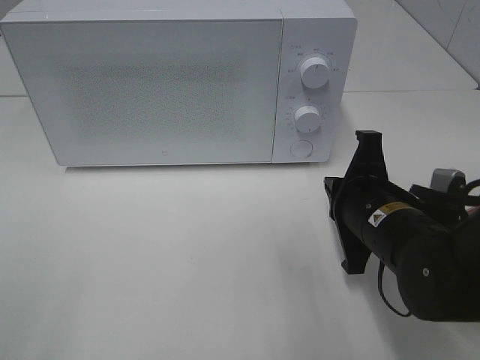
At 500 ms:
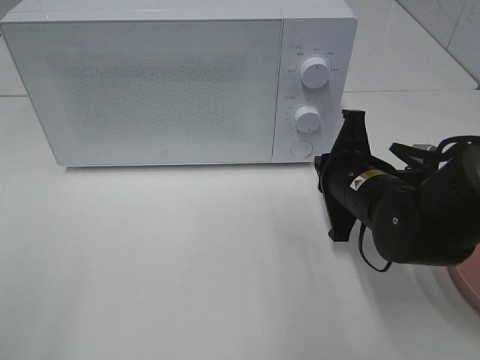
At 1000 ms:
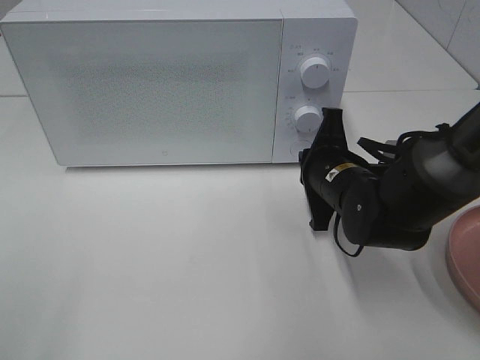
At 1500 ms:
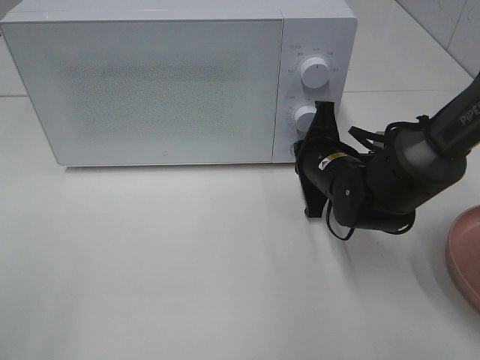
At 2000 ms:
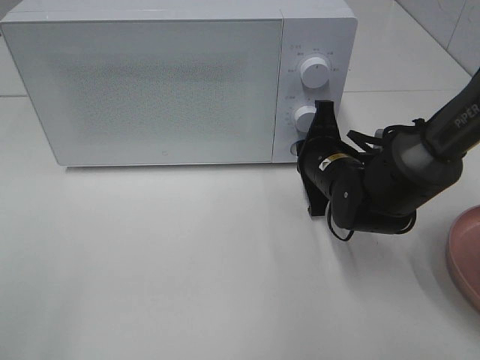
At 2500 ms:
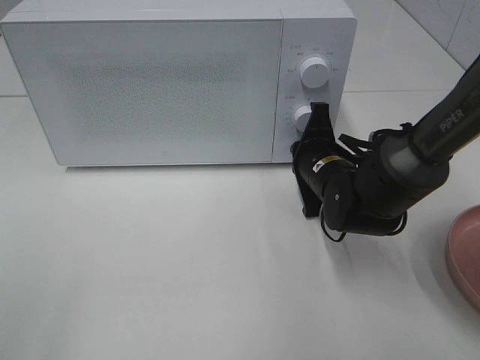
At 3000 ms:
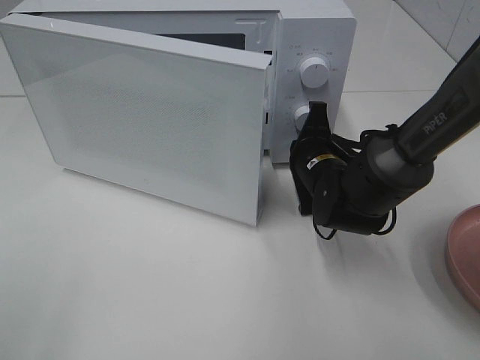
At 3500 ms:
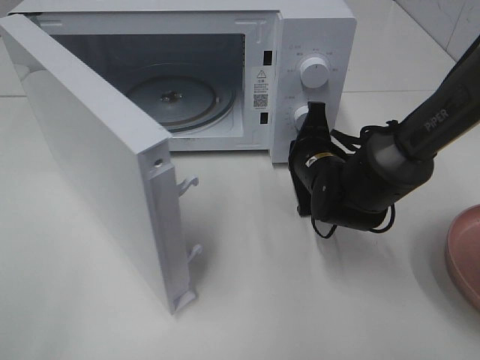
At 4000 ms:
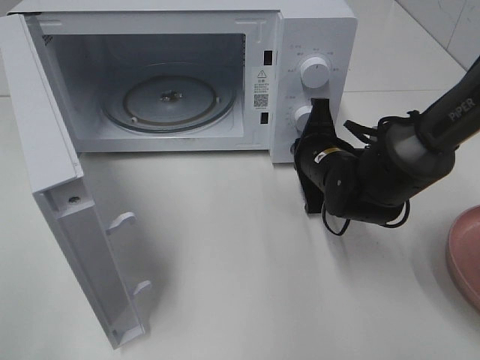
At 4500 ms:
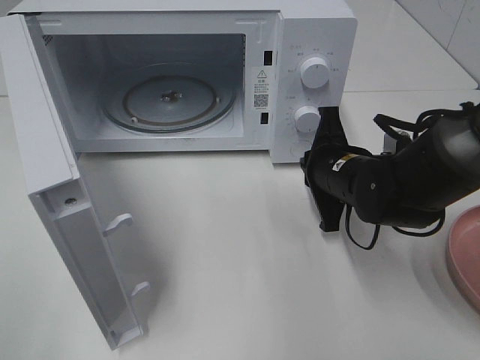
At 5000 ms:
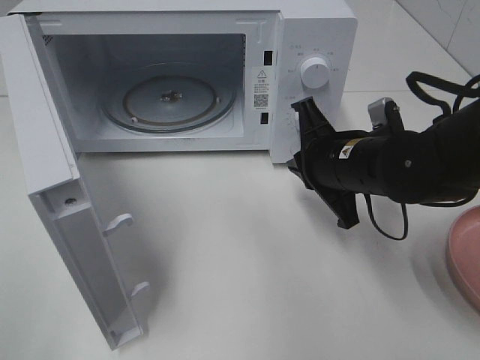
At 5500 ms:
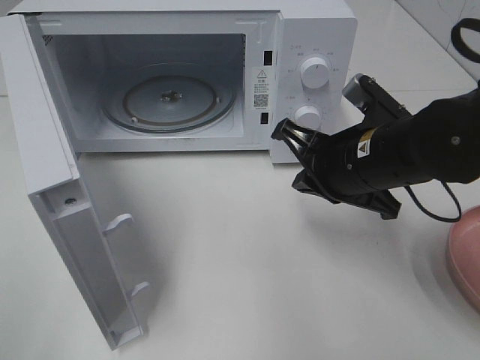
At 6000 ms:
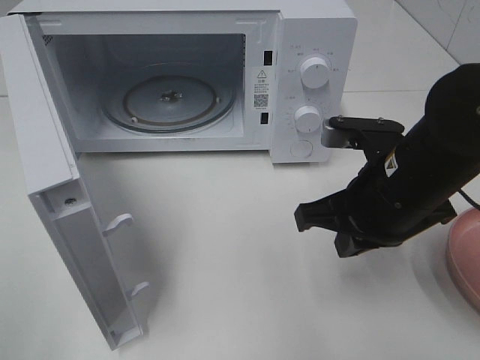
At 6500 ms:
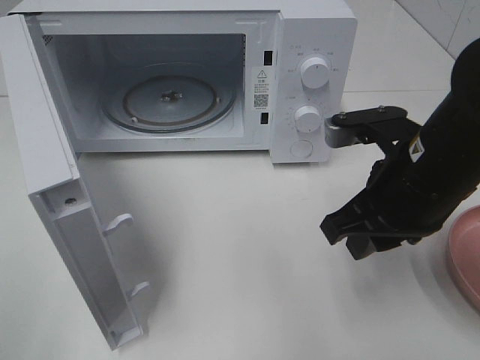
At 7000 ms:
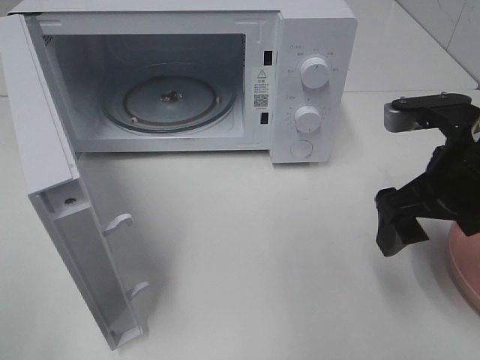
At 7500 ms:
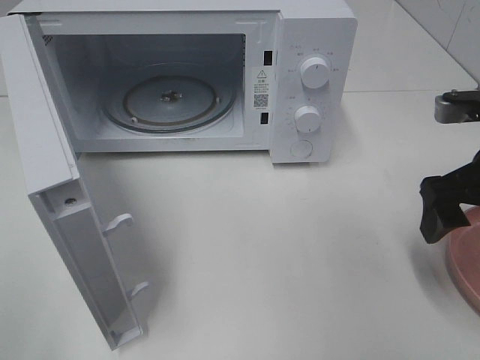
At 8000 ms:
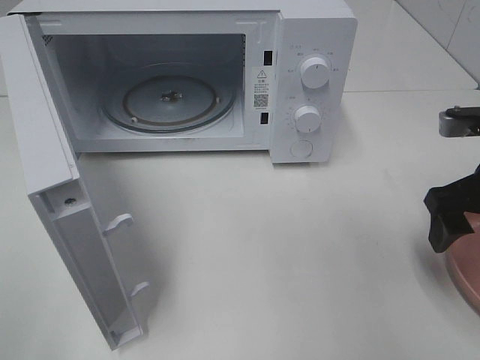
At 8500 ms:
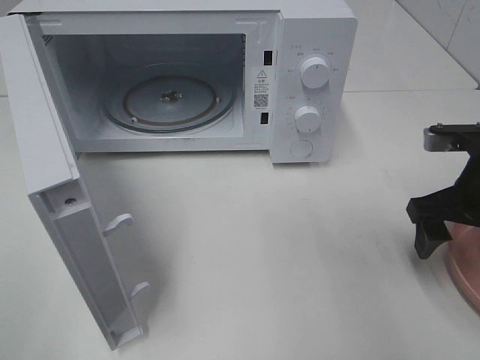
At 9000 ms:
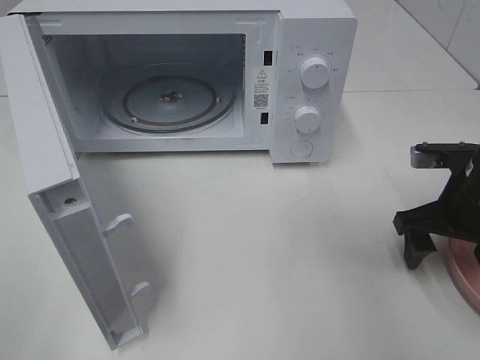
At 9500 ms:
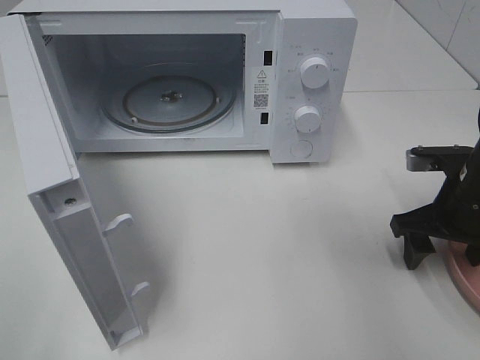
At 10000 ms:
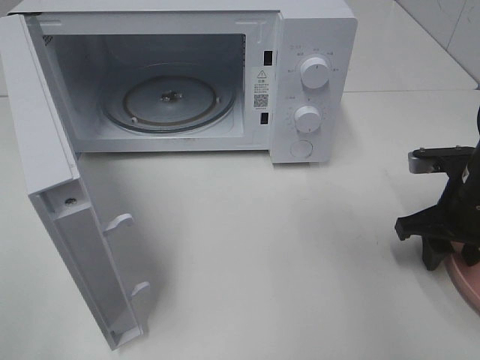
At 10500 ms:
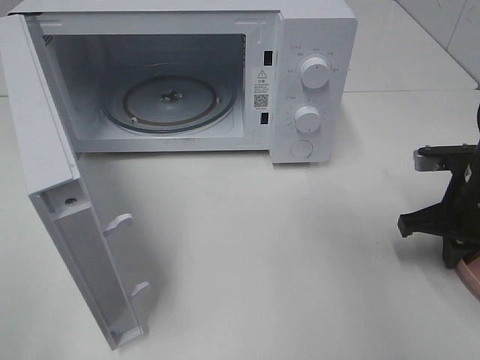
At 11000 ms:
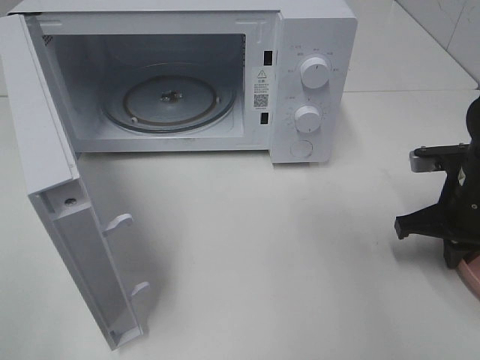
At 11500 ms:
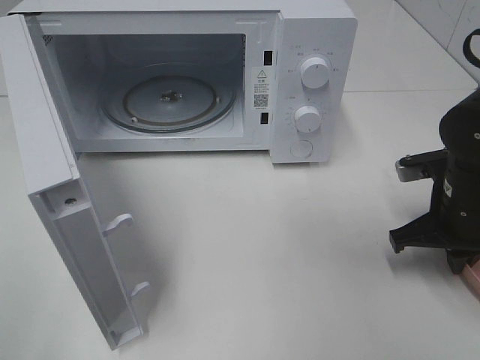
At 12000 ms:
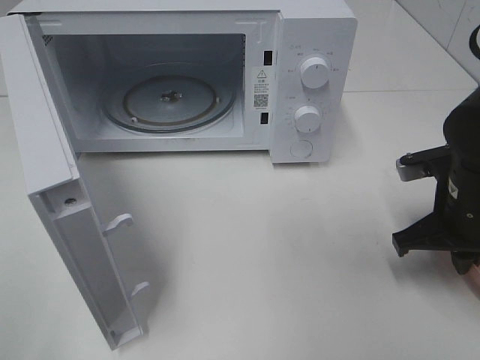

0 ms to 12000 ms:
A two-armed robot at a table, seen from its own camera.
Task of the whole recording: Heat the burger.
Step, 0 ms to 4500 ms: Right hand: press the switch.
Step, 5000 ms to 11000 ms: Right hand: grab the plate with the hamburger.
0 ms to 2000 ms: The right gripper heads forward, covering roughly 10 cm.
4000 ms to 6000 ms: The right gripper moves backward and upward, approximately 15 cm.
6000 ms to 8000 ms: The right gripper shifts roughly 10 cm to the right, and opens up.
8000 ms to 10000 ms: The right gripper is displaced downward by approximately 10 cm, and closes.
10000 ms to 12000 ms: The right gripper closes its fingers.

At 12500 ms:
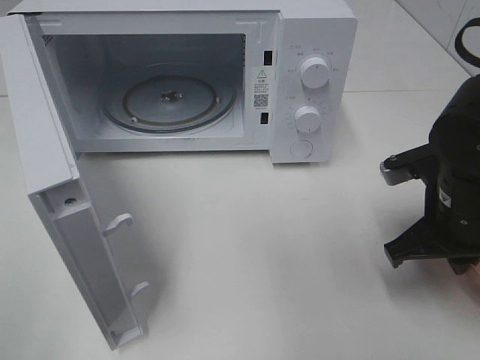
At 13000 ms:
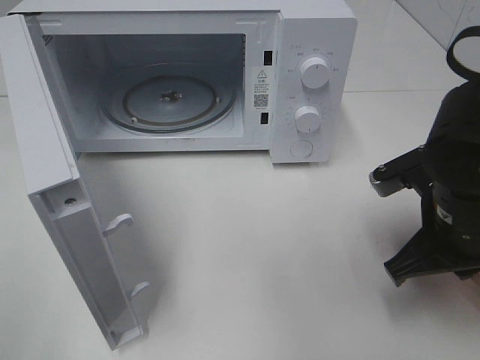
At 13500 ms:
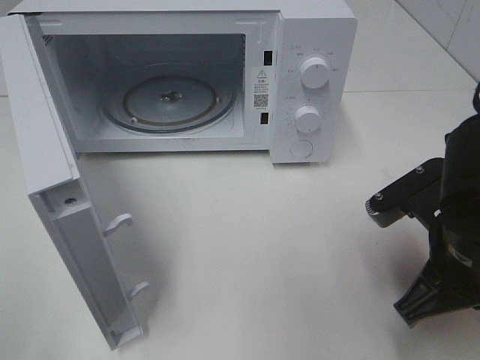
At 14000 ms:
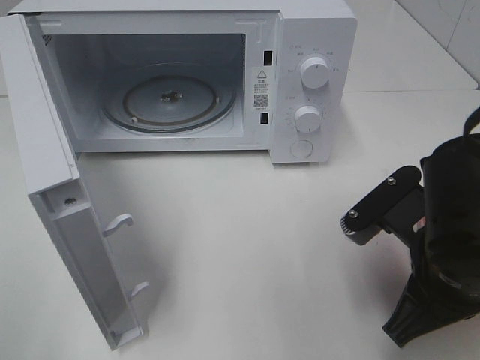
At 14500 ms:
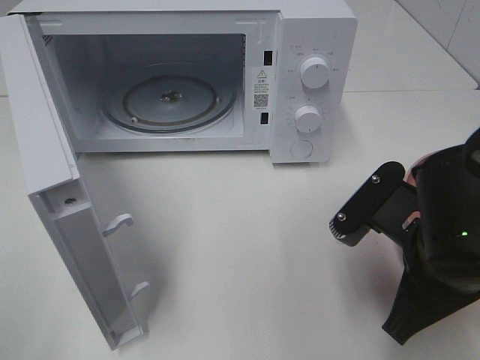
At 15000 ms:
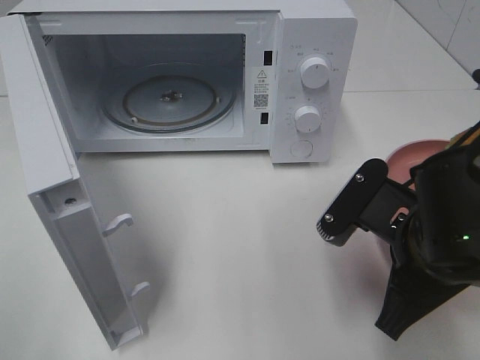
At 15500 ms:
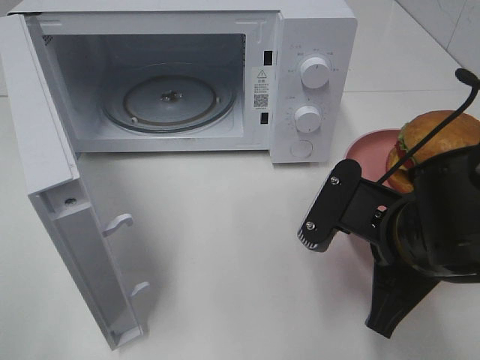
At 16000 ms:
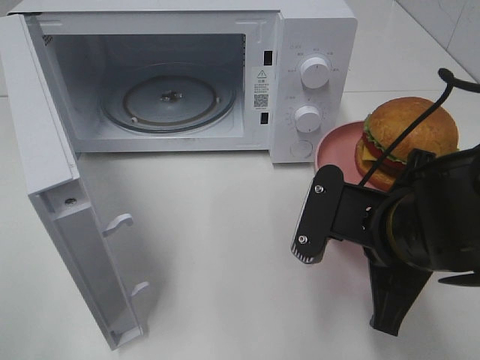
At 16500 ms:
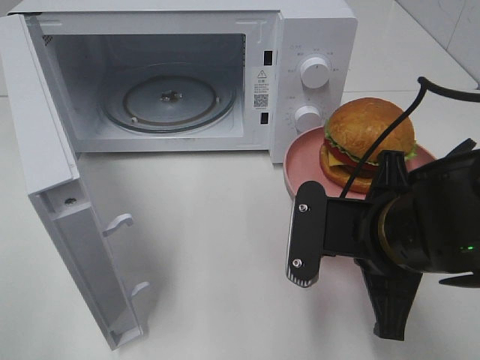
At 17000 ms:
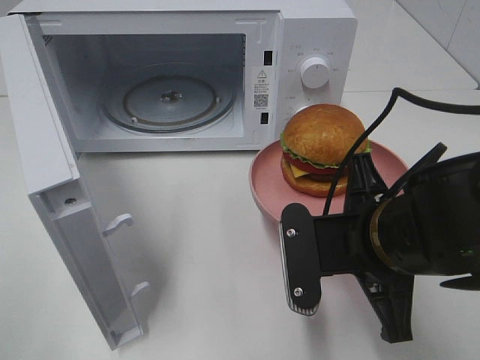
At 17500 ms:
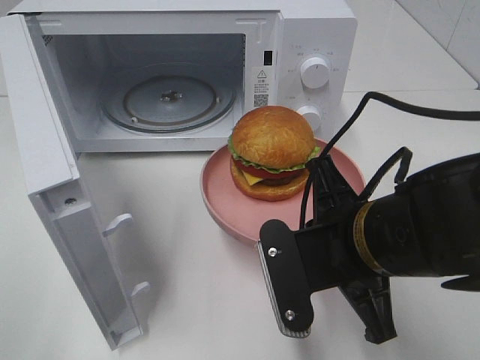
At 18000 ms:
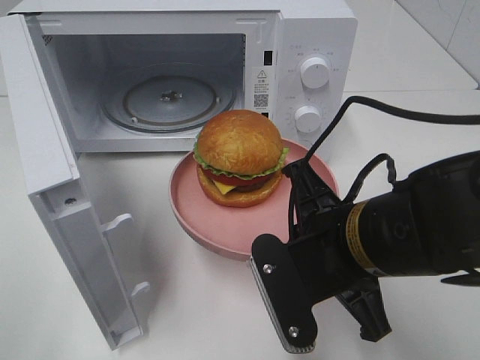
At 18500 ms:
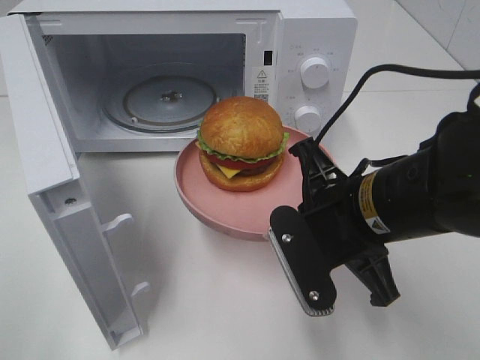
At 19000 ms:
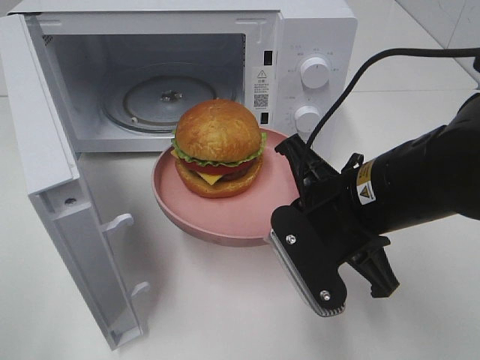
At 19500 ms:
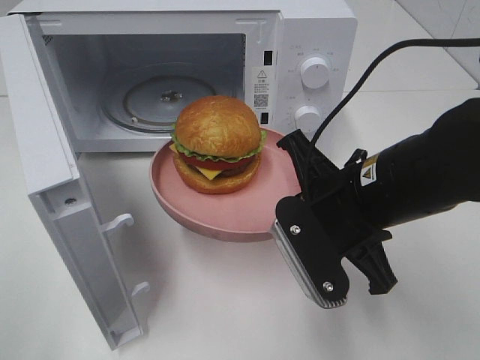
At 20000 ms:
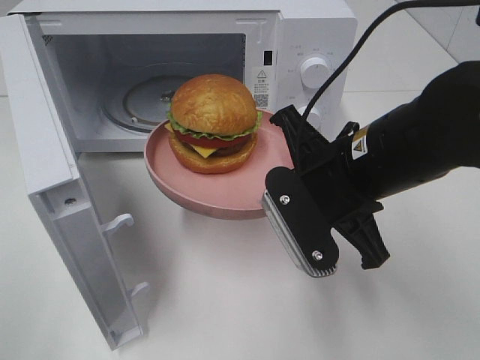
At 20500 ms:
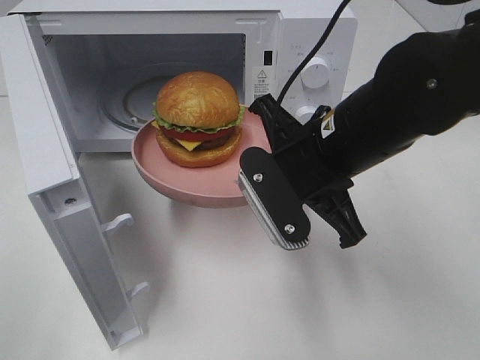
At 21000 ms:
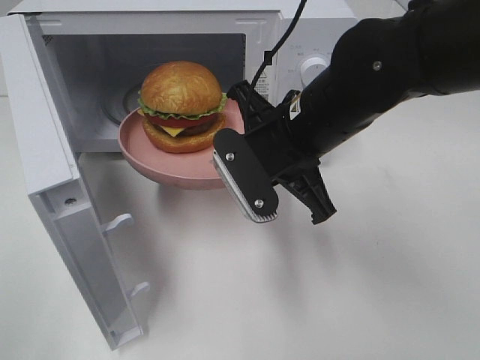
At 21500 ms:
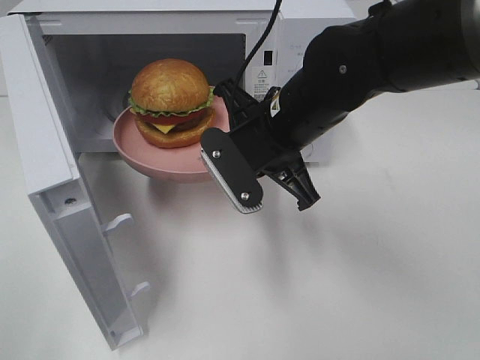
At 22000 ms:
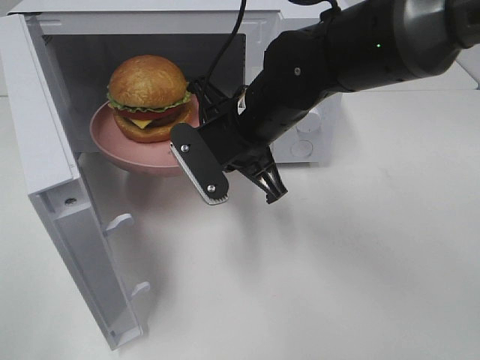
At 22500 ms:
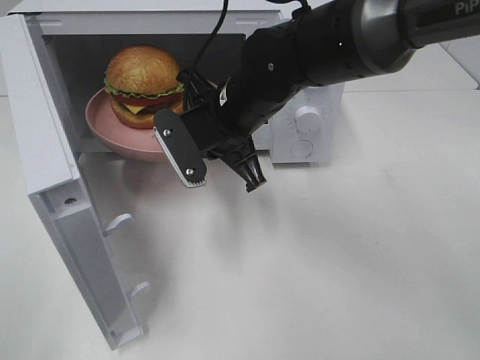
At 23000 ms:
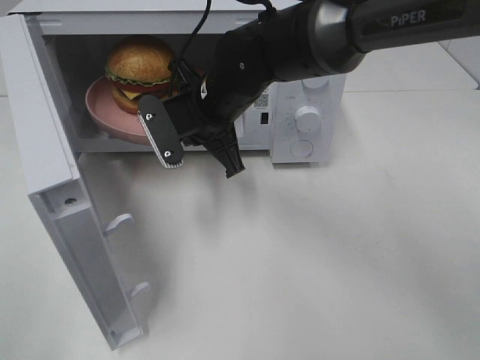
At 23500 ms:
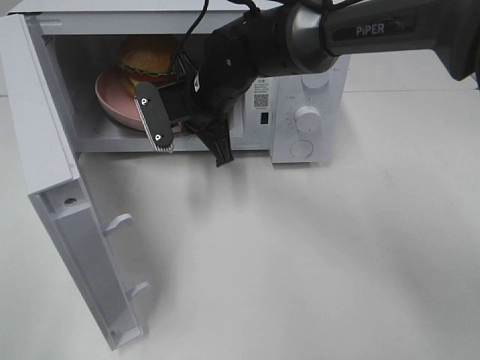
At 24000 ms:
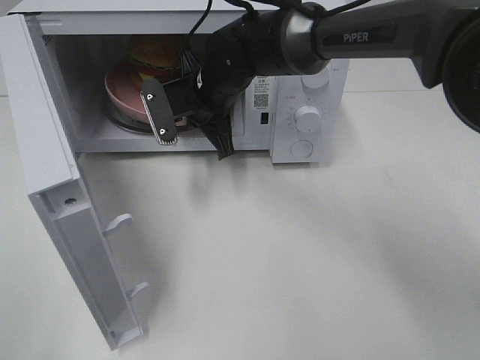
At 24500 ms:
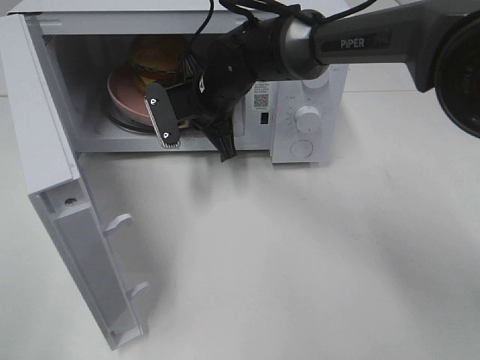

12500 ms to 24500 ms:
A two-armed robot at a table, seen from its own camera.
Task of the whole recording: Heat the burger.
12500 ms to 14500 ms: The right gripper is displaced backward and to the left by roughly 10 cm.
18500 ms to 20500 ms: The right gripper changes place by about 5 cm.
20500 ms to 22500 ms: The right gripper moves forward and to the left, about 10 cm.
22500 ms to 24500 ms: The right gripper shifts approximately 10 cm forward.

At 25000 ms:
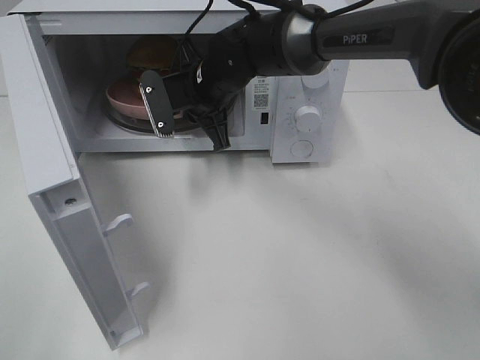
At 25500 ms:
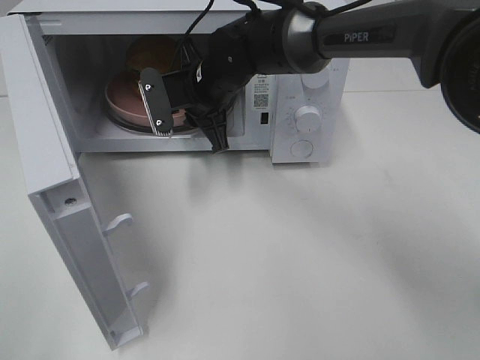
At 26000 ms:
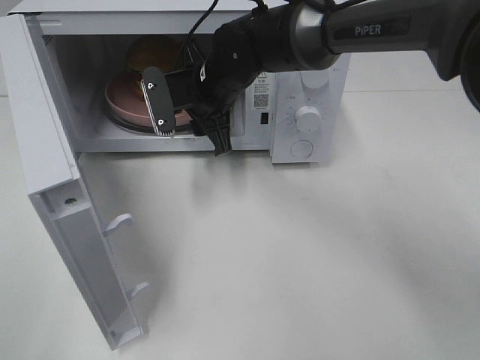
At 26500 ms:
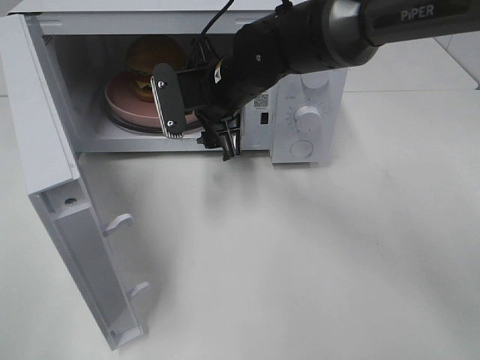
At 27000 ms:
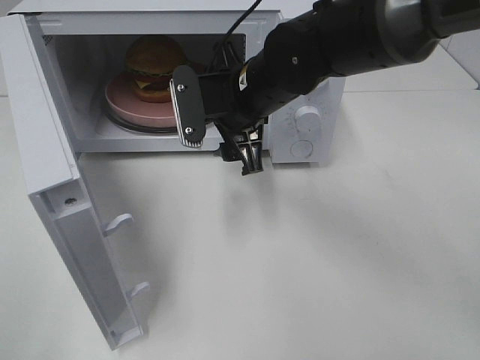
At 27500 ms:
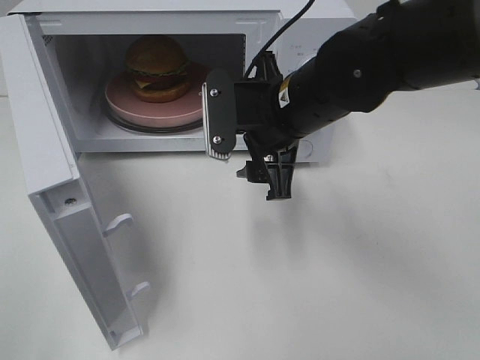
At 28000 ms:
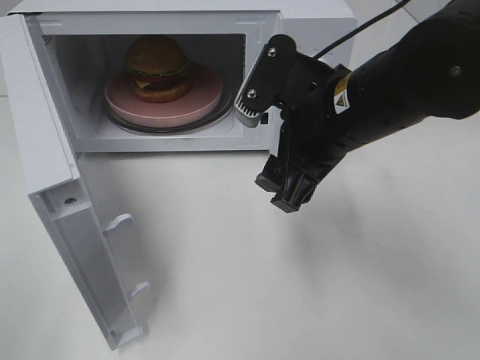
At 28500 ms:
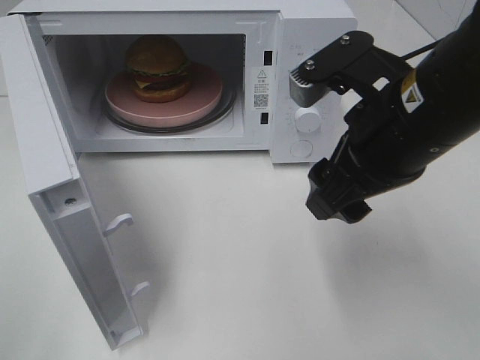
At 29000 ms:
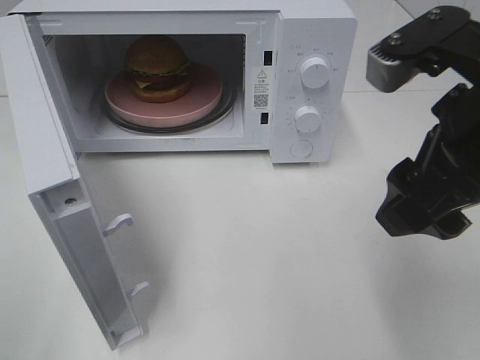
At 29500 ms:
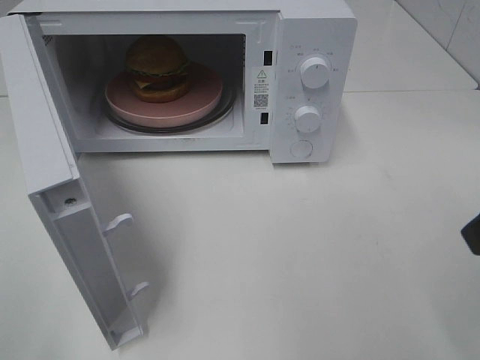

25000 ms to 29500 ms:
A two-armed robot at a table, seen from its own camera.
Task of the whole recording: Heat the burger.
25000 ms to 27000 ms: The right gripper heads backward and to the right, covering approximately 10 cm, and opens.
27000 ms to 29500 ms: The right gripper shifts about 30 cm to the right, backward and upward.
